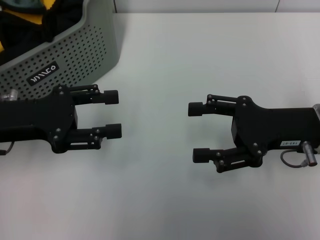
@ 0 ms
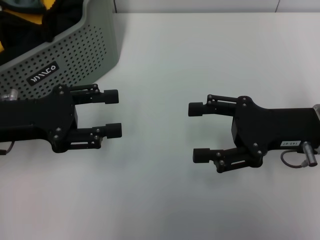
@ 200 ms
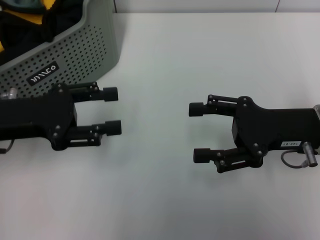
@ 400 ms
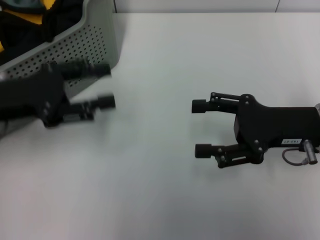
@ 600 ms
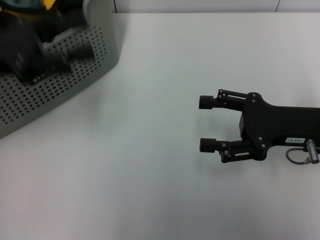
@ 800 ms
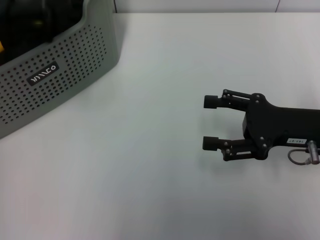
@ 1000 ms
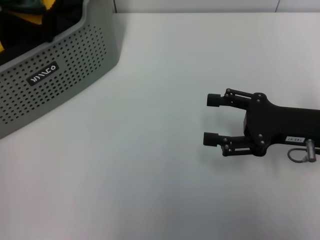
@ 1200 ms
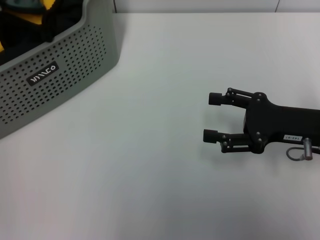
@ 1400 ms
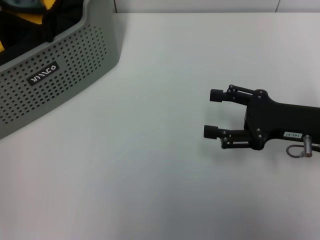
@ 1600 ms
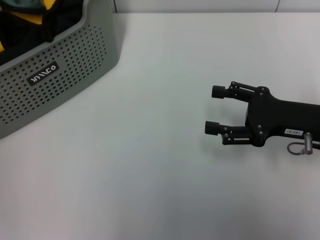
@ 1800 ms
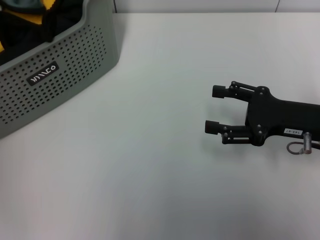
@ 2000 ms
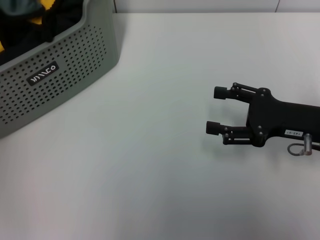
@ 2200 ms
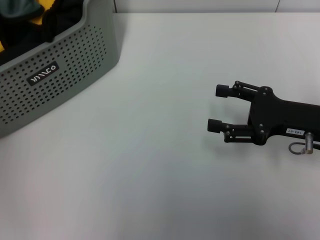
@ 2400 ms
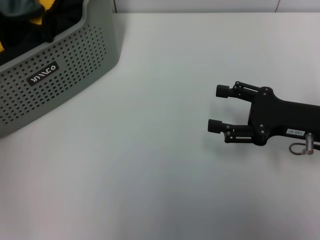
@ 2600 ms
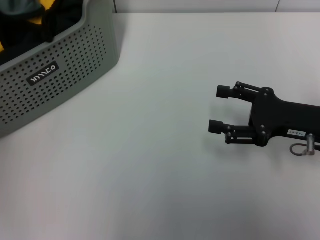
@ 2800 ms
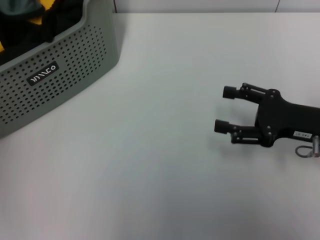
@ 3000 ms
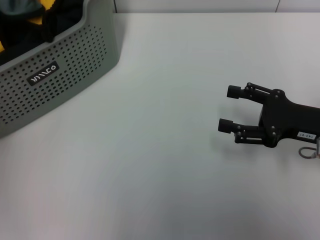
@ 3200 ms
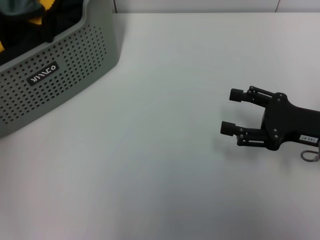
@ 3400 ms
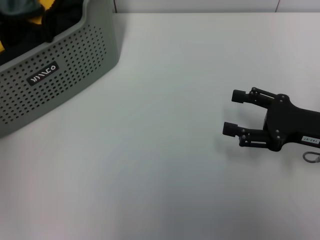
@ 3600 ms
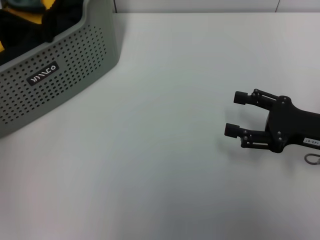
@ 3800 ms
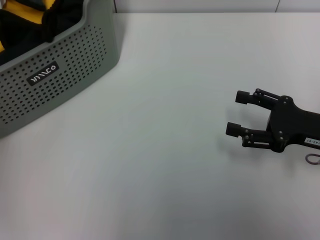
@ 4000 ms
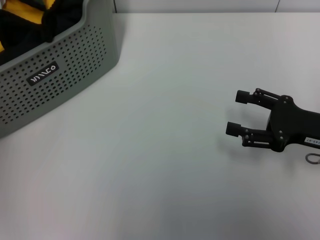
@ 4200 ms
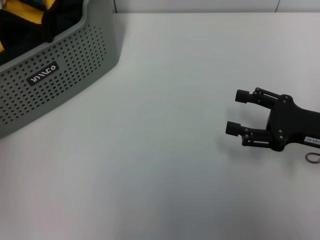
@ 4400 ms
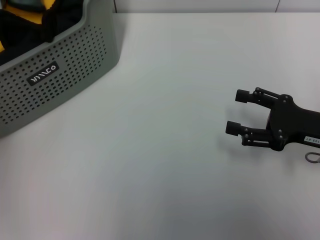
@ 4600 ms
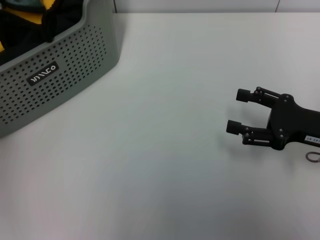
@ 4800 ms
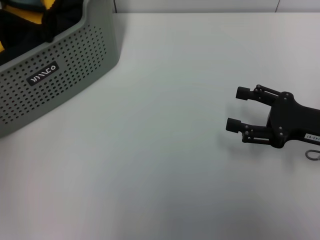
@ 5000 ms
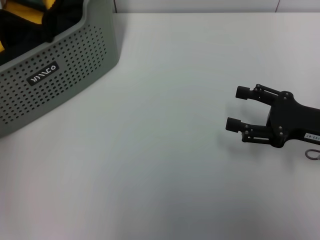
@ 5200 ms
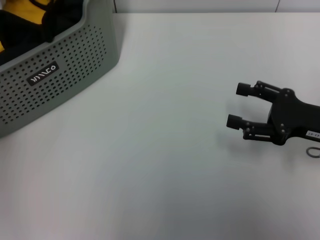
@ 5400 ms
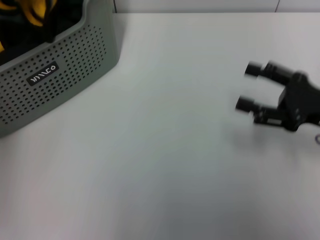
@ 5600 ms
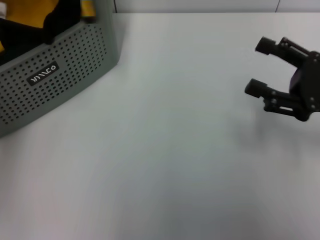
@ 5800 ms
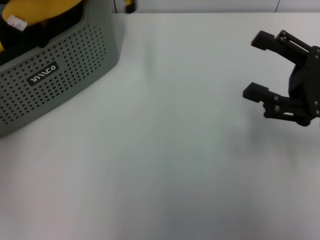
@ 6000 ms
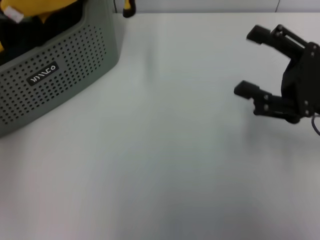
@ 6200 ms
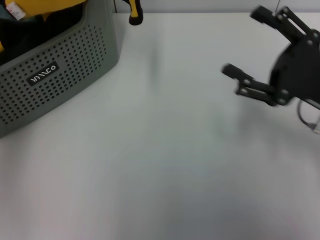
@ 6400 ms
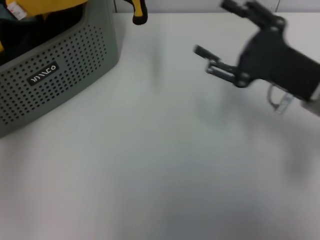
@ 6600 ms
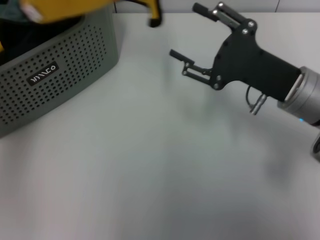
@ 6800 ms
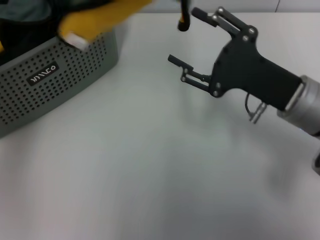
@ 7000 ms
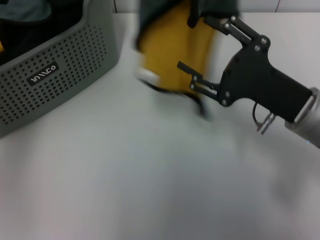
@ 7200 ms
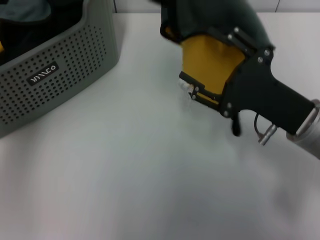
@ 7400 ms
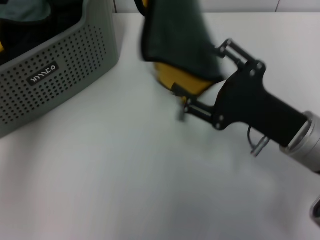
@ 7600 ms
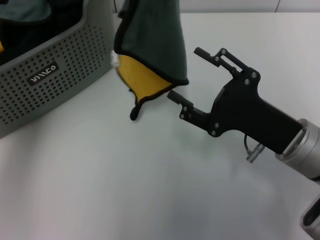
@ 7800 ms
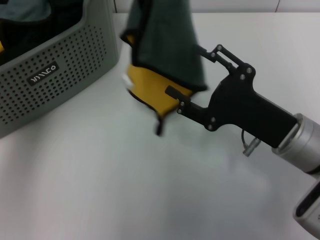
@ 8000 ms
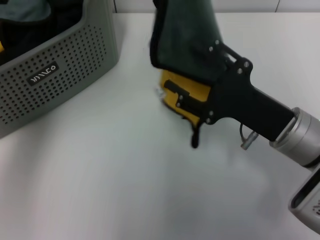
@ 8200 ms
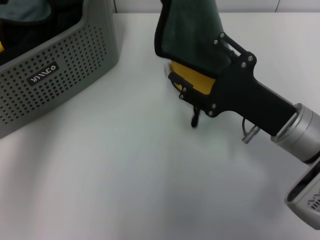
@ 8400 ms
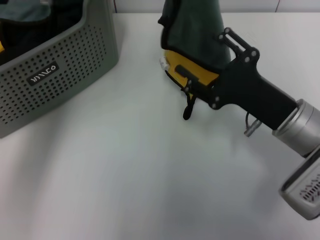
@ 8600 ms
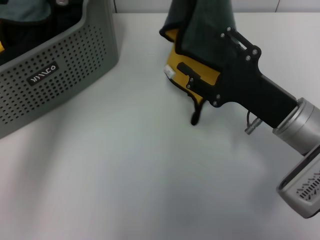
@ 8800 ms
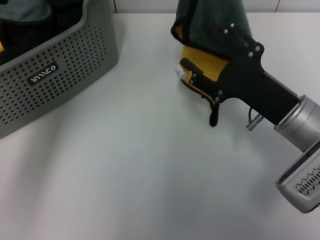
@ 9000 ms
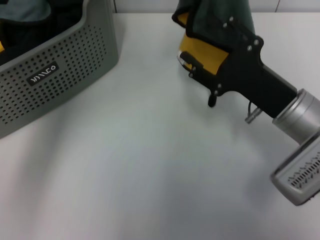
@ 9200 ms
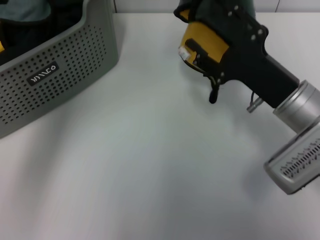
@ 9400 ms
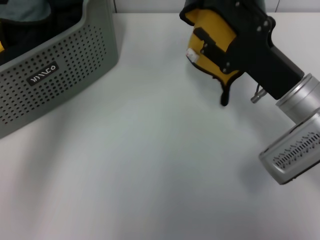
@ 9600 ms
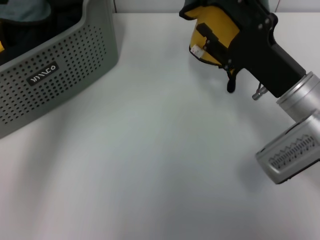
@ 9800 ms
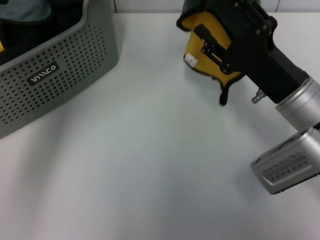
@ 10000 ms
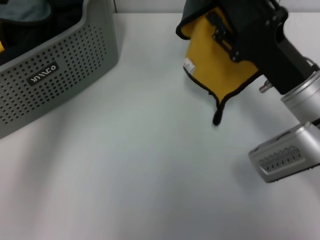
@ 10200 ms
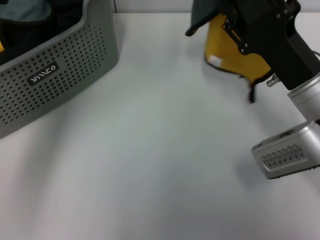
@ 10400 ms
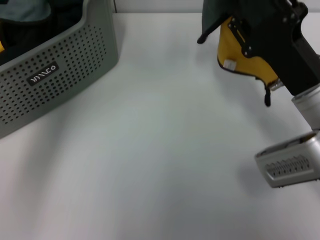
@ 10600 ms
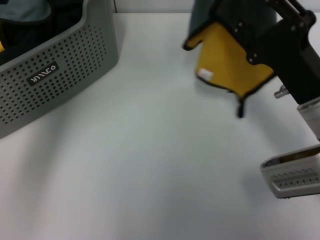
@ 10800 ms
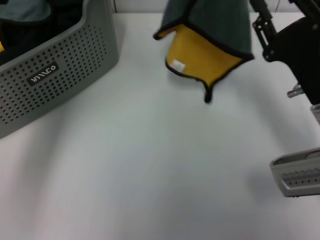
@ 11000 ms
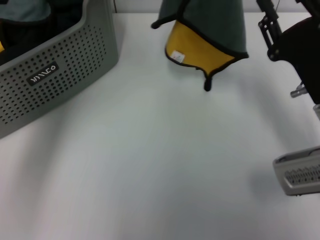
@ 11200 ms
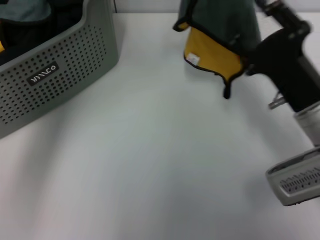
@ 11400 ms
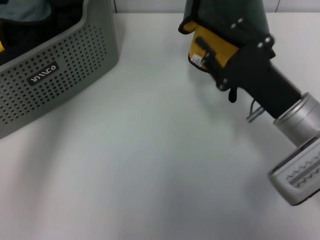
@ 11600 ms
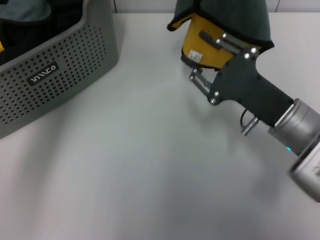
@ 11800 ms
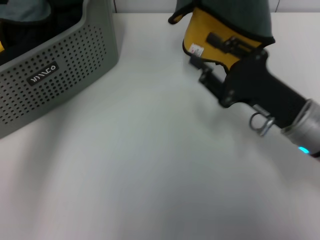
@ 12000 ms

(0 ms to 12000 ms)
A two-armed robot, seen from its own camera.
Task of the whole recording: pick up the towel from the storage box and lay it flat on the table.
Step, 0 ms - 5000 ms: Pick up a towel with the left gripper.
0 ms - 1600 ms: The left gripper heads upward and to the left, covering about 15 cm.
1600 ms - 3000 ms: The grippers move only a little.
3000 ms - 4400 ms: The grippers make only small movements.
4400 ms - 6000 ms: The left gripper shifts approximately 15 cm upward, to the right and backward, and closes its fingers.
6000 ms - 7600 ms: The left gripper travels to the right by some 5 cm. The right gripper travels to the left by approximately 10 cm.
7600 ms - 9000 ms: The left gripper shifts some 5 cm to the right.

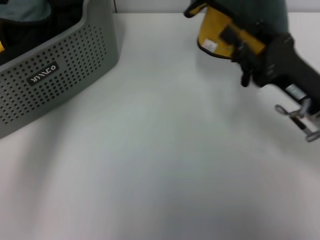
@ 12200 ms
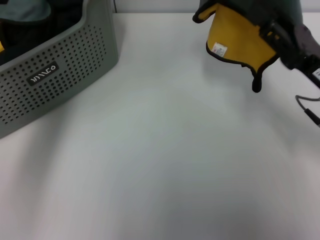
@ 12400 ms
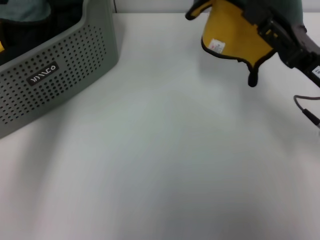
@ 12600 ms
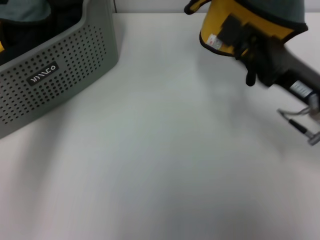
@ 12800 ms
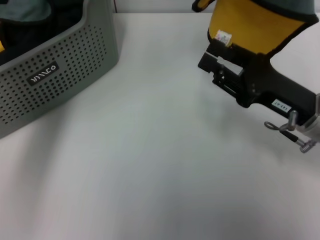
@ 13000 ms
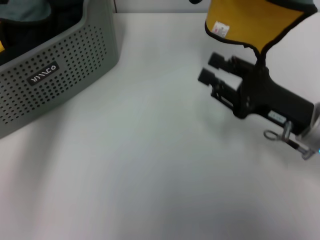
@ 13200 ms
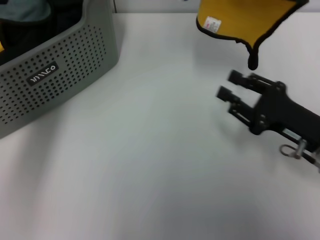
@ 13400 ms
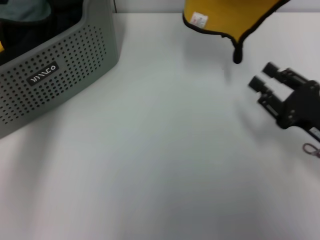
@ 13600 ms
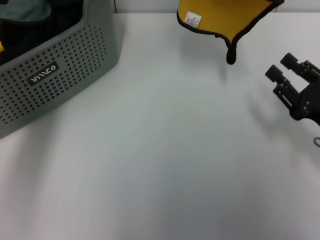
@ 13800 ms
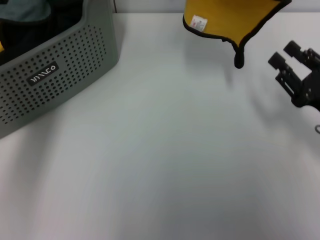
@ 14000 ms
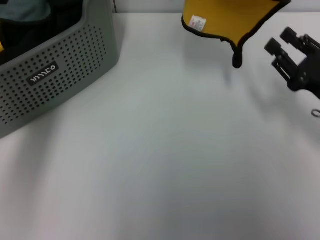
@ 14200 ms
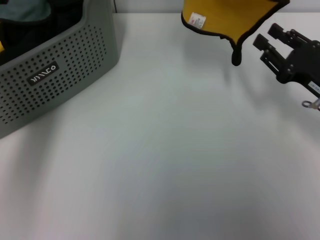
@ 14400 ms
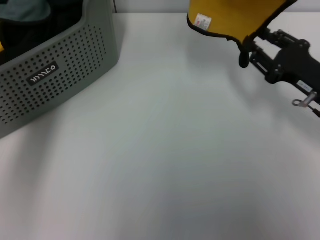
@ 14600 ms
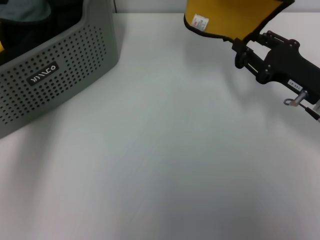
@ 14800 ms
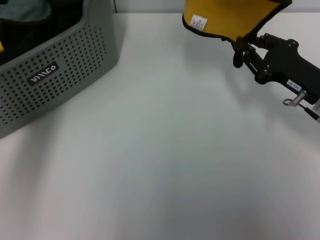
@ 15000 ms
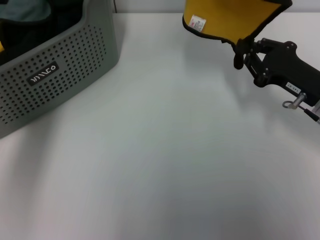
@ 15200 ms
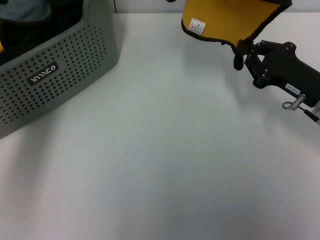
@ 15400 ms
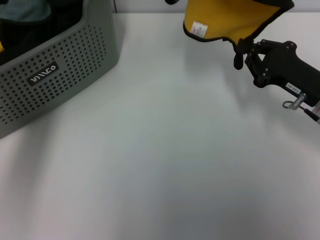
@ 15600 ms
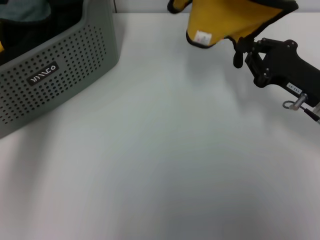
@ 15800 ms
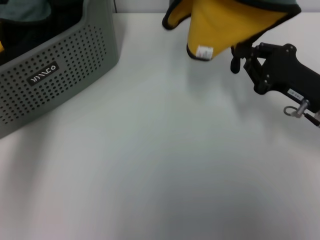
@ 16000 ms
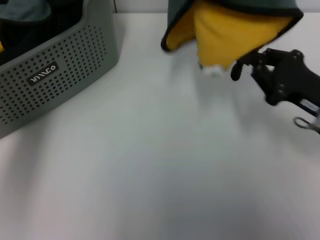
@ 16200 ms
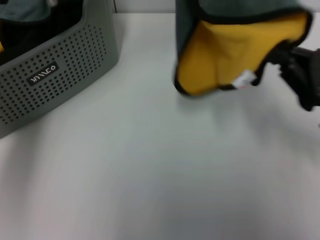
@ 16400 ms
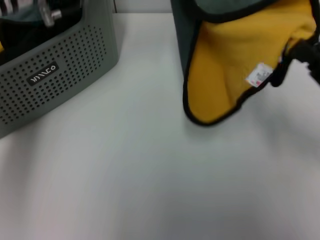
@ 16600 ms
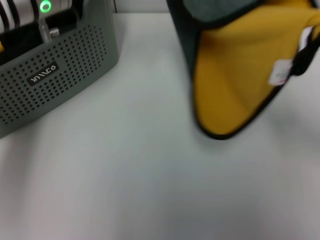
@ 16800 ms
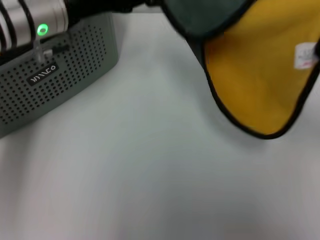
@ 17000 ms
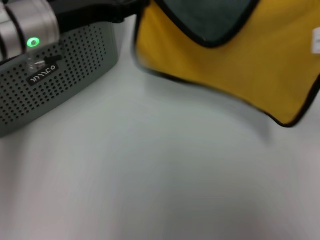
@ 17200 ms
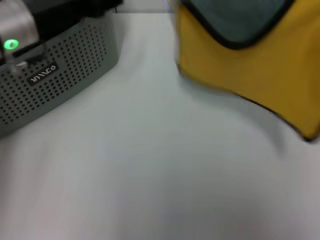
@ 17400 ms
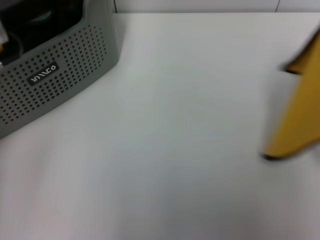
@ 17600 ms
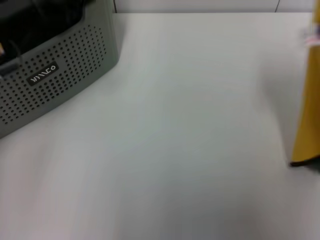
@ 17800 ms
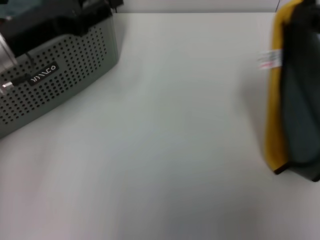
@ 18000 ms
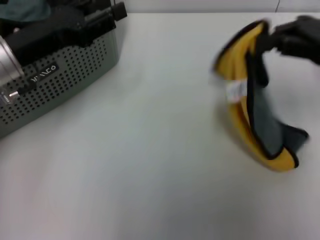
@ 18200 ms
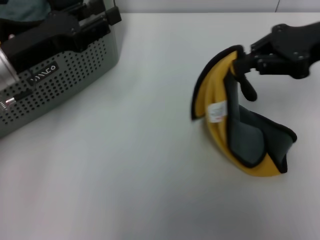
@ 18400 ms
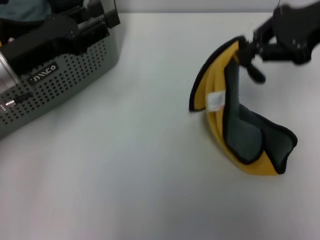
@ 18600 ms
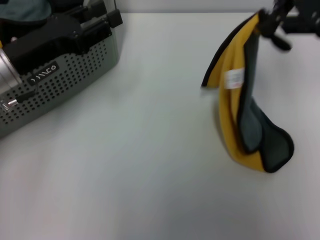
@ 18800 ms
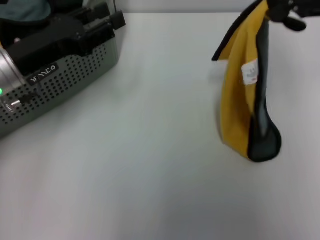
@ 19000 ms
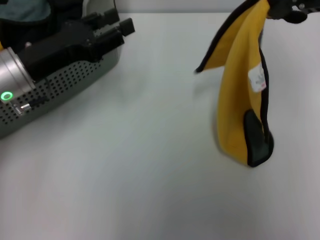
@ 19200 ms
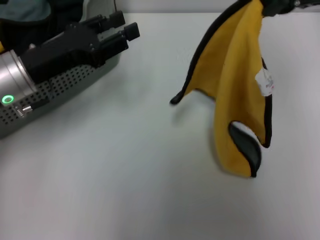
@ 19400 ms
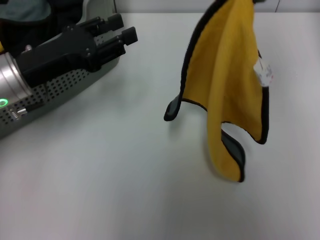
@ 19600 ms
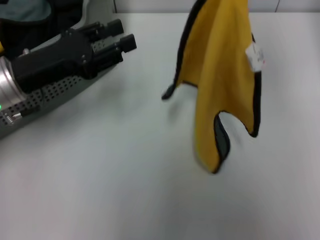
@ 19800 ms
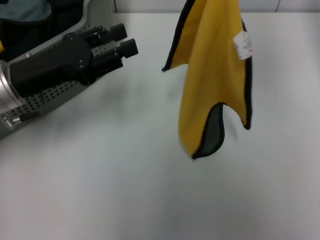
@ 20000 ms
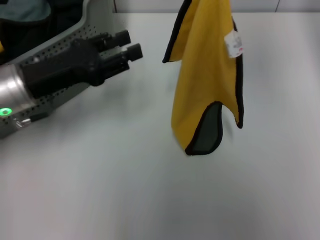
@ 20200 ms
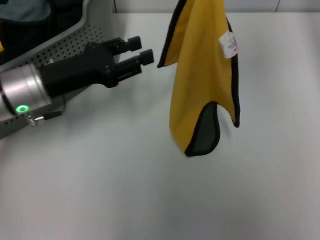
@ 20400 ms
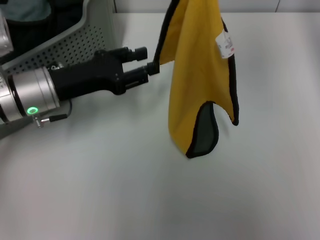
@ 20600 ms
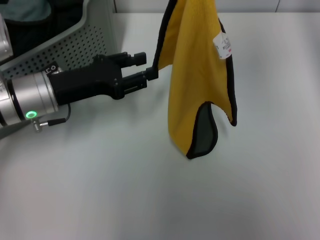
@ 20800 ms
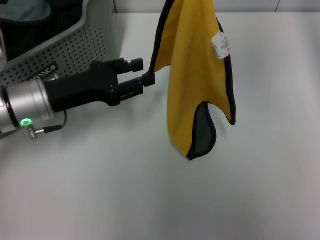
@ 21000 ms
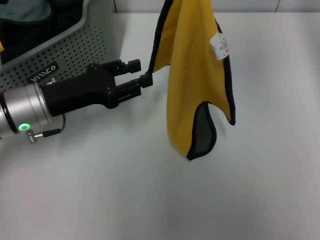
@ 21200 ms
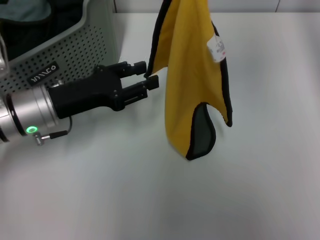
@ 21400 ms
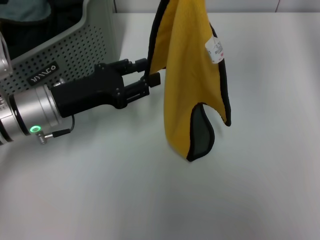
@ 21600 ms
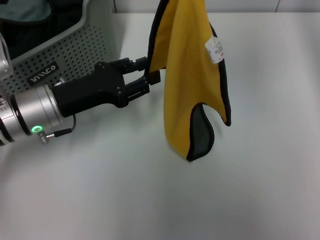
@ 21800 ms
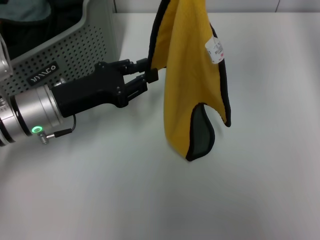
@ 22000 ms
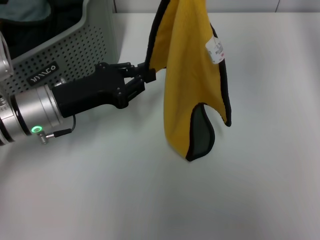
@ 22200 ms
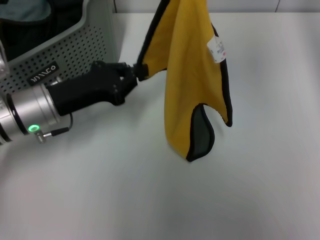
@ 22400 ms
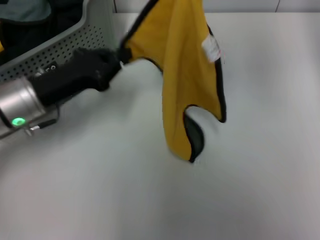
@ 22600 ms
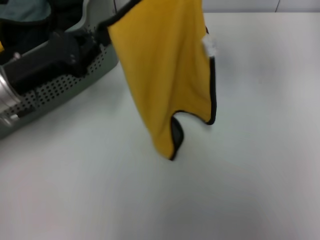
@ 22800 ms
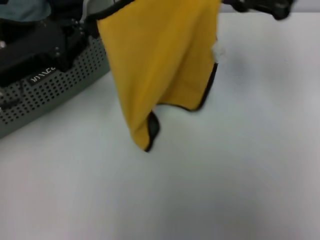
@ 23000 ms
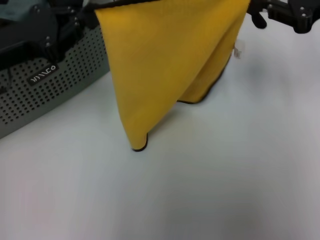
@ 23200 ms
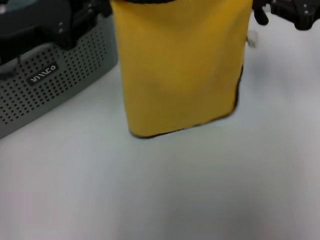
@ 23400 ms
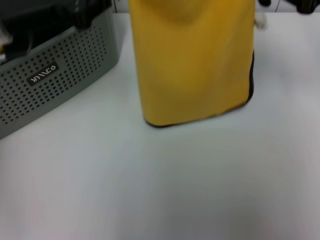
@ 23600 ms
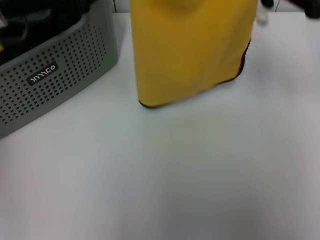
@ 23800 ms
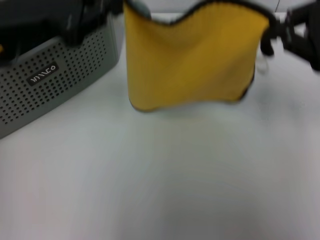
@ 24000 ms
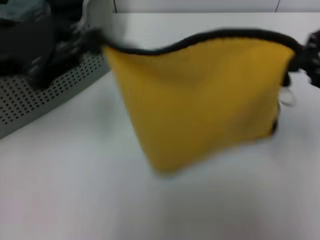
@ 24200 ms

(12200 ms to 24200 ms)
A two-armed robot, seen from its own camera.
Task of the whole recording: pick up the towel from the storage box and lay it flat on the table.
Step, 12200 ms - 15400 ms: Spread the towel flat with the left gripper.
12200 ms - 13800 ms: The right gripper moves to the right, approximately 5 cm.
13800 ms - 15200 ms: The right gripper moves forward, some 5 cm.
15200 ms - 16600 ms: The left gripper shifts some 10 cm downward. Meanwhile the right gripper travels backward by about 5 cm.
16600 ms - 18200 ms: The right gripper goes roughly 15 cm forward and upward. Meanwhile the left gripper heads downward, to the left and backward, covering roughly 10 cm, and opens its fingers.
18200 ms - 19800 ms: The right gripper is displaced upward and to the left by about 25 cm.
21200 ms - 22600 ms: The left gripper closes up.
22600 ms - 24200 ms: The right gripper is displaced downward, to the right and backward by roughly 25 cm. The left gripper is displaced upward by some 10 cm.
